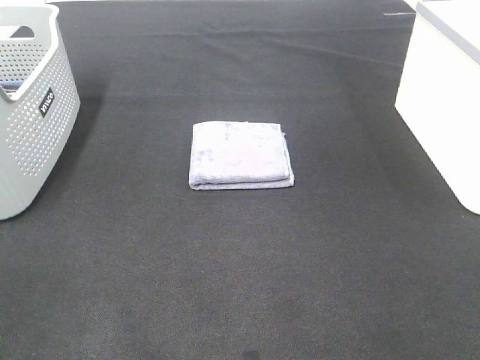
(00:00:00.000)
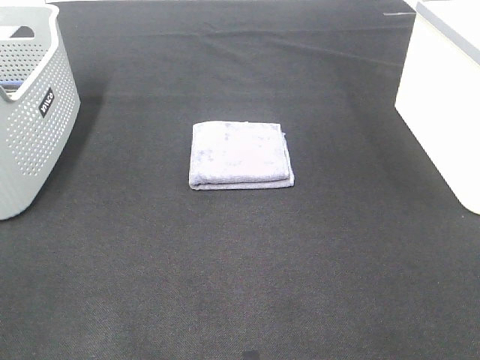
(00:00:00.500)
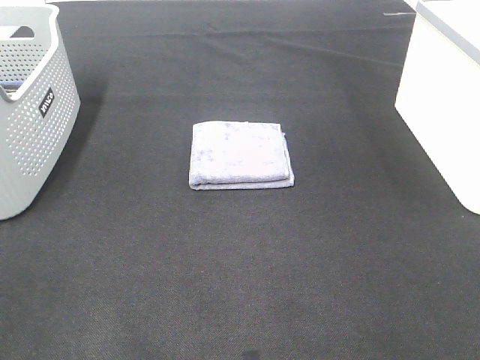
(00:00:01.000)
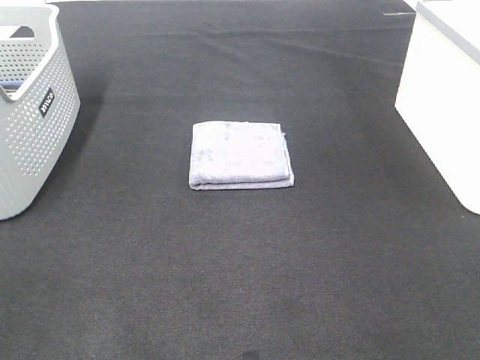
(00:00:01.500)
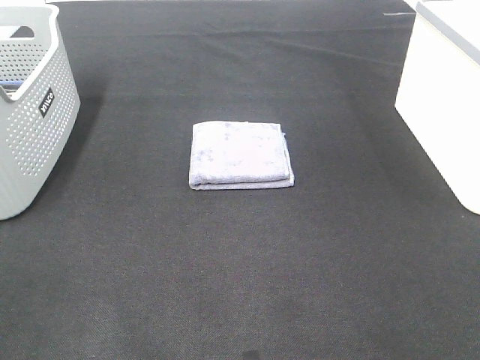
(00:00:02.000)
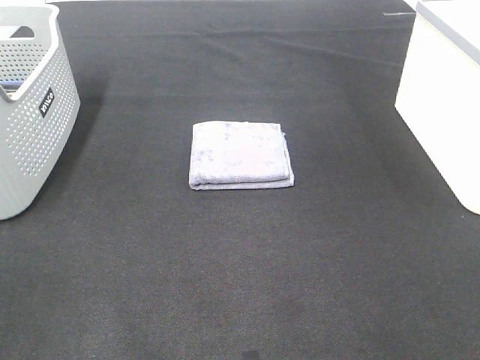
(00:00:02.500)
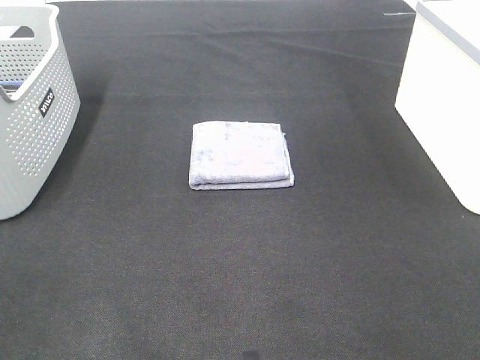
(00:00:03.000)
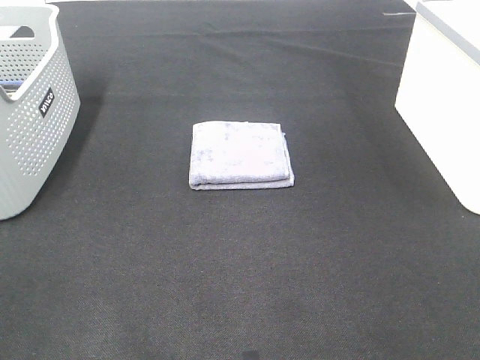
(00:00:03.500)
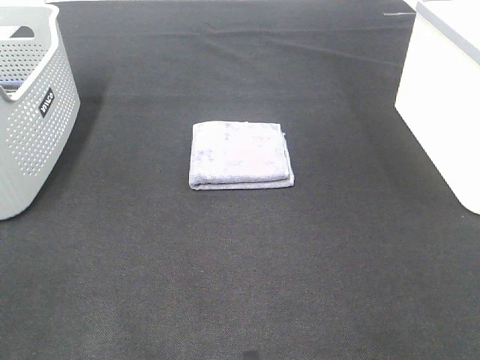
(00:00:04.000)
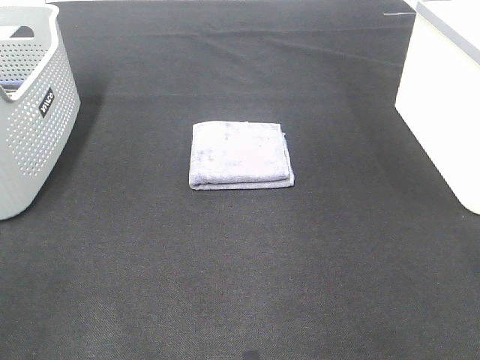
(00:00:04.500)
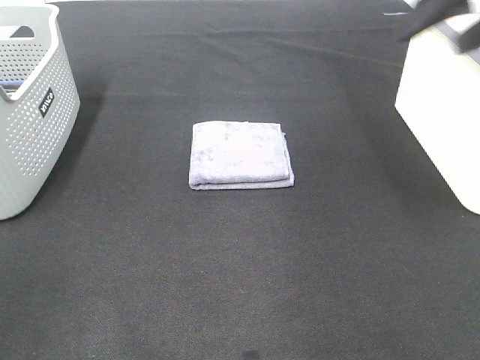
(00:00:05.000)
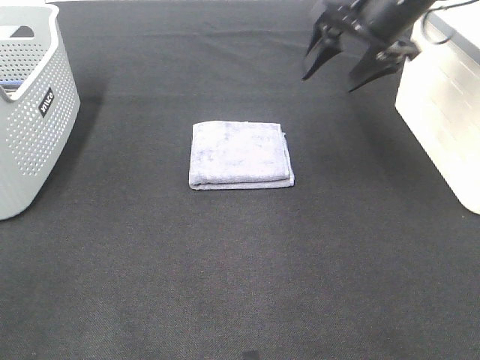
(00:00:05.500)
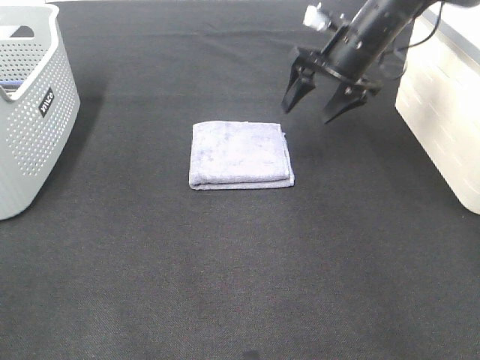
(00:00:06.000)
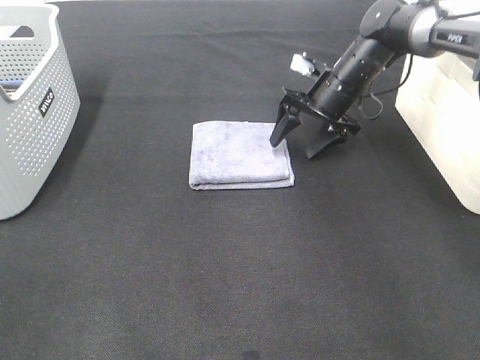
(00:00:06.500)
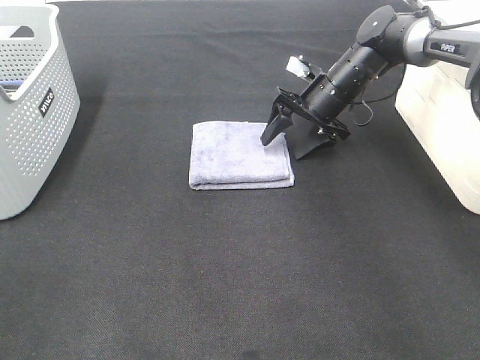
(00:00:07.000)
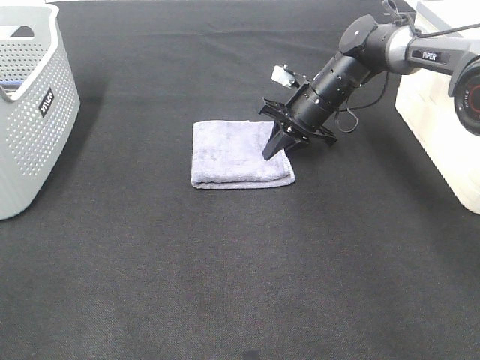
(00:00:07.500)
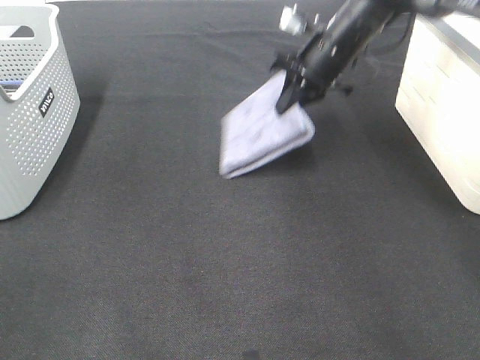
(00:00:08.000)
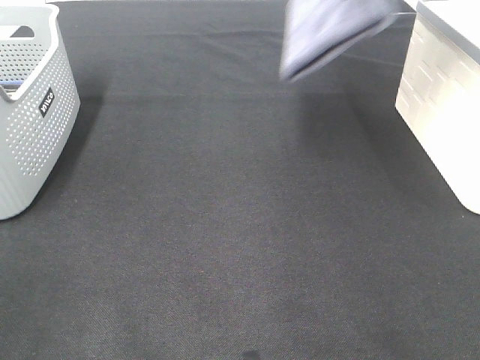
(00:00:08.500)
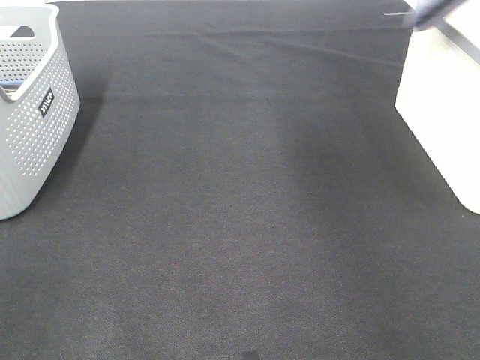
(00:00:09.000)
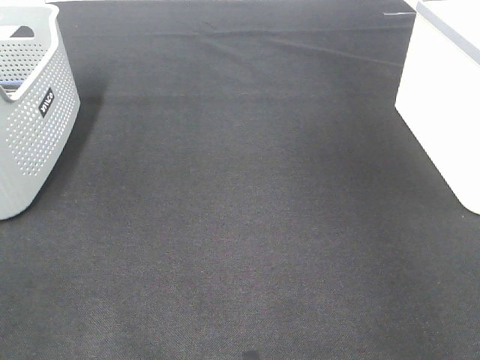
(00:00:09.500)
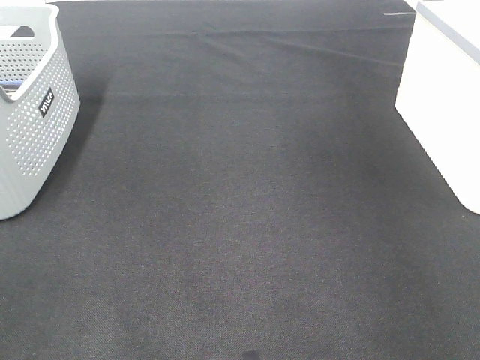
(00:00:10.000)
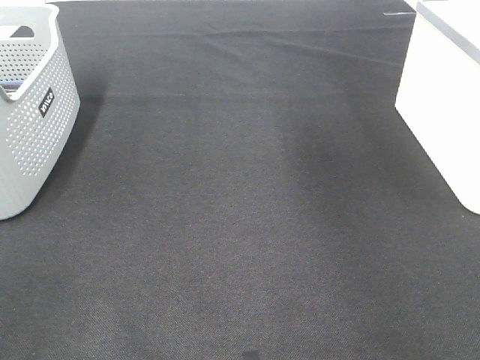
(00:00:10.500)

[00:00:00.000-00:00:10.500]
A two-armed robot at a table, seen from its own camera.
Step, 00:00:00.000 to 00:00:07.500: Right hand: grab the folded grey towel.
Step, 00:00:08.000 to 00:00:10.000: Right hand: place the grey towel in right basket.
00:00:00.000 to 00:00:02.000: The two grippers keep their place.
00:00:04.000 to 00:00:06.500: The right gripper goes roughly 50 cm forward and downward.
00:00:06.500 to 00:00:08.500: The right gripper heads upward, covering roughly 25 cm, and closes.
00:00:08.500 to 00:00:10.500: The right gripper goes about 10 cm to the right, and opens.

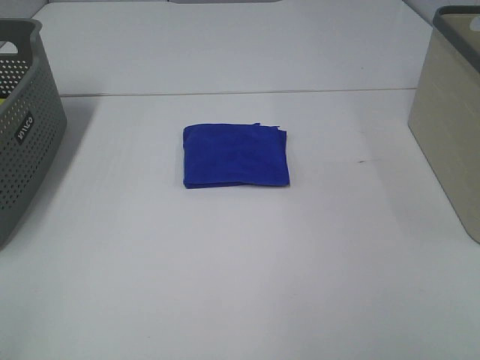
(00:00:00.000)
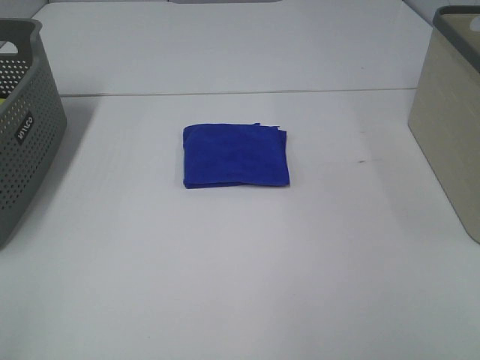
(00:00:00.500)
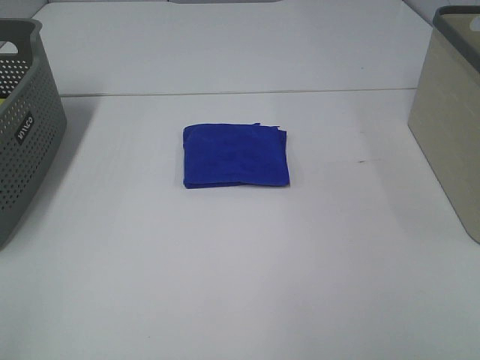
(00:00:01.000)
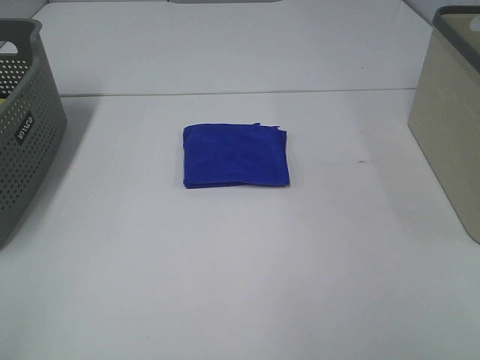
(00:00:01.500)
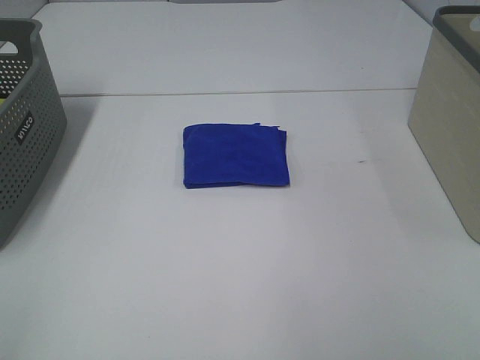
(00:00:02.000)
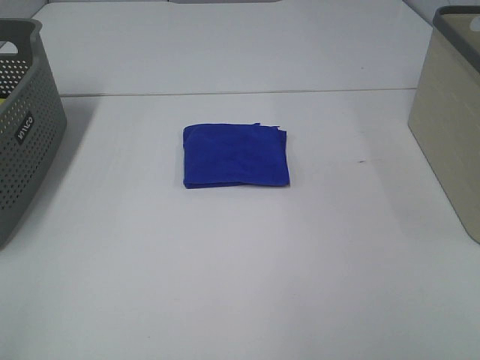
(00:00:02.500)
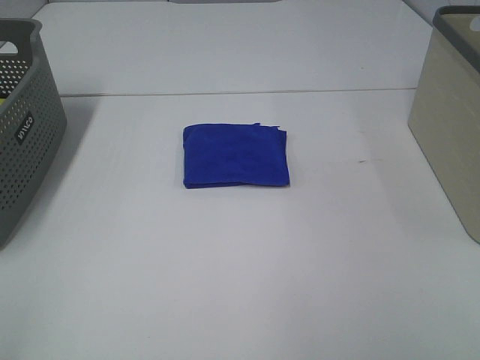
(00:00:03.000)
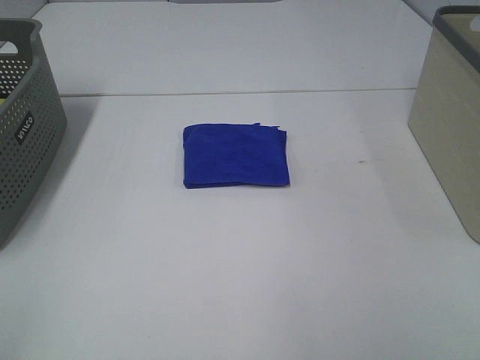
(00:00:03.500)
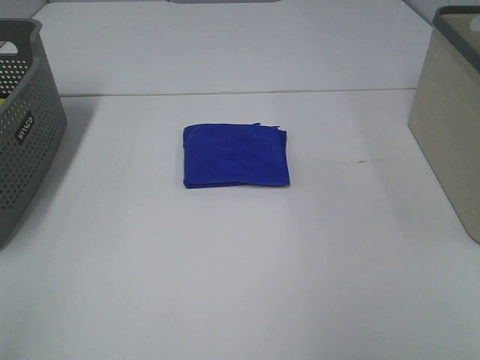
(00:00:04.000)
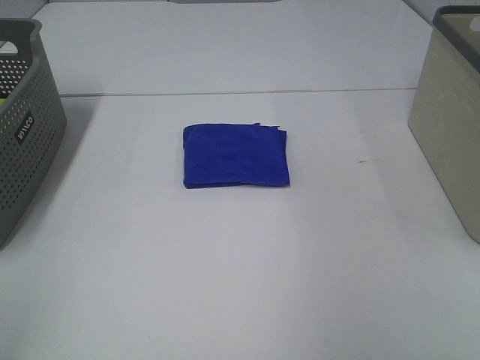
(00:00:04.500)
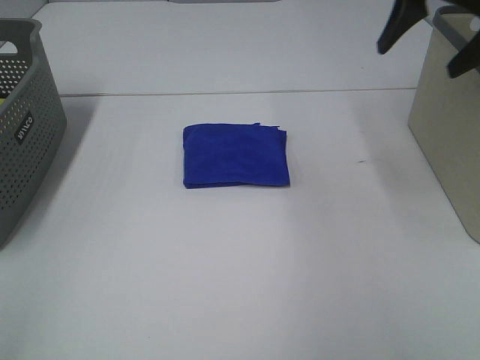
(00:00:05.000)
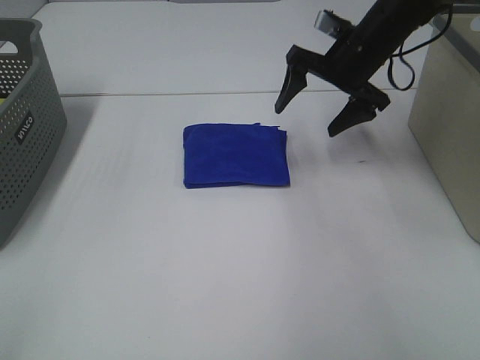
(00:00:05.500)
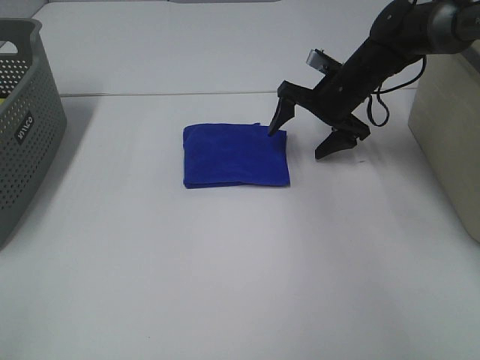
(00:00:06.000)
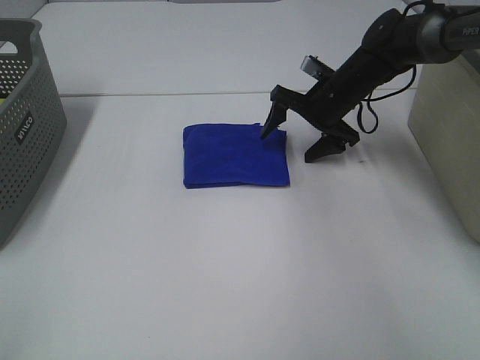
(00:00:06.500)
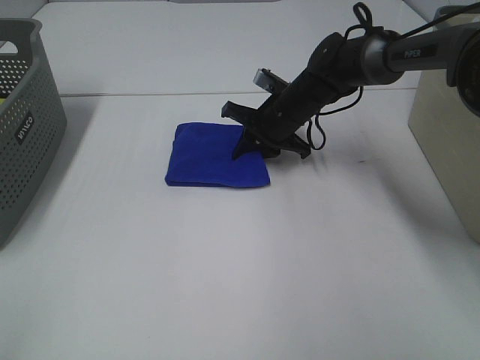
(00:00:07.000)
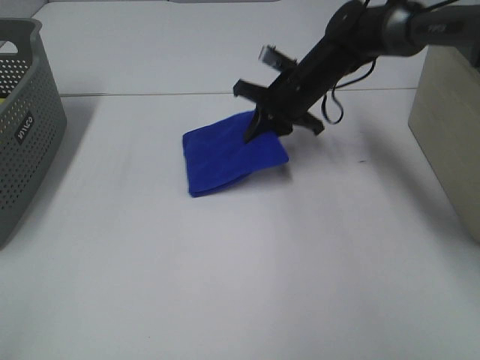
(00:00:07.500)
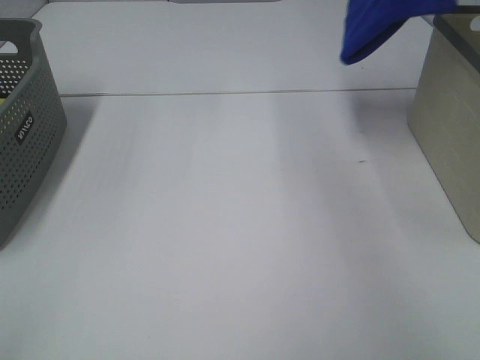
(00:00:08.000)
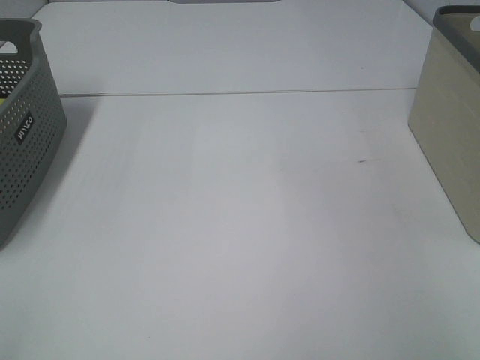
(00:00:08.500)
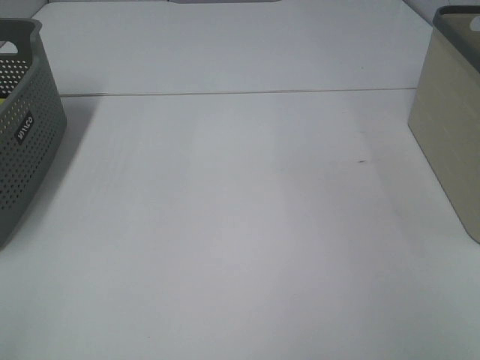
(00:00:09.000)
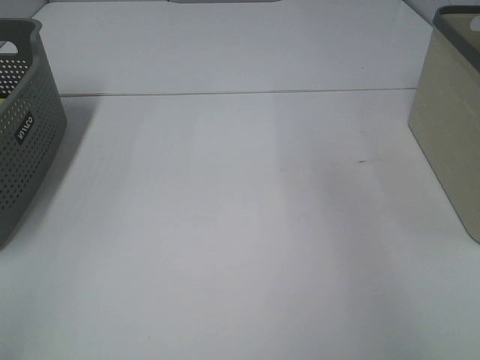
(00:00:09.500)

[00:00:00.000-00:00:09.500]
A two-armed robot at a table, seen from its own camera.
Step, 00:00:00.000 to 00:00:07.000: Right hand: grab the folded blue towel.
Step, 00:00:07.500 to 00:00:09.000: Right hand: place the blue towel in right basket.
00:00:00.000 to 00:00:02.000: Neither gripper changes place.
00:00:04.000 to 00:00:05.500: The right gripper moves forward, downward and to the left, some 40 cm.
00:00:05.500 to 00:00:07.500: The right gripper goes about 5 cm to the left, and closes up.
00:00:07.500 to 00:00:09.500: The right gripper goes some 35 cm to the right and upward, and opens its fingers.

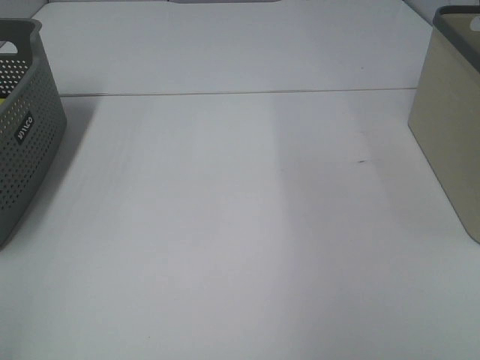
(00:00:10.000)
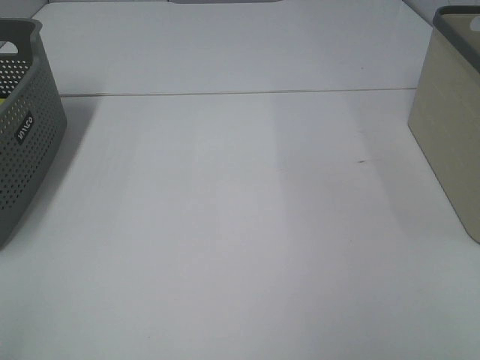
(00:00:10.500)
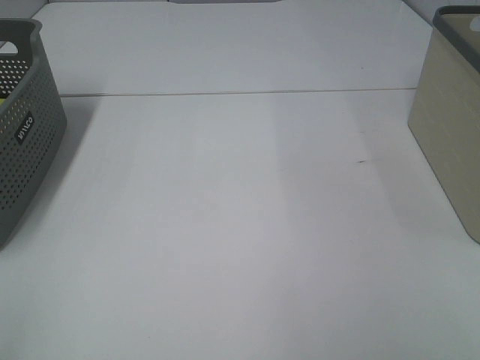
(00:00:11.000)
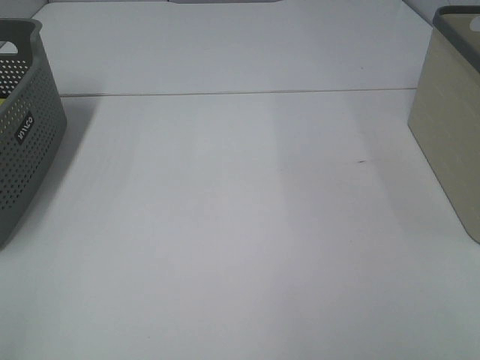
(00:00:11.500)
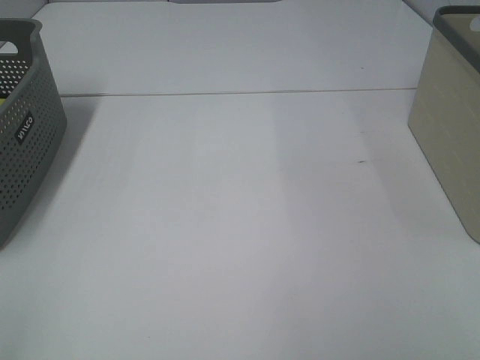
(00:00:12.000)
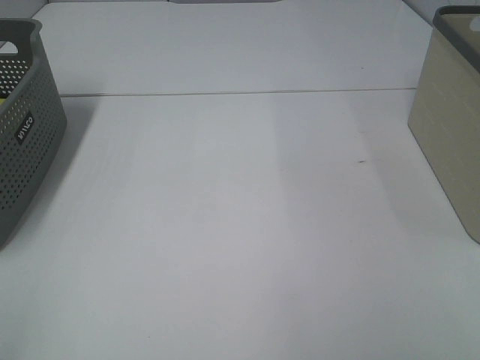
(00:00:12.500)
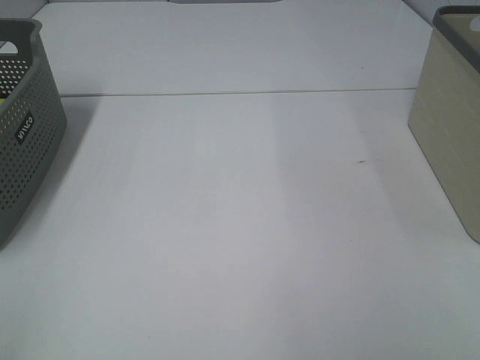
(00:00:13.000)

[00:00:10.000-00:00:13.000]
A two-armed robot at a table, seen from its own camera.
00:00:11.500 to 00:00:13.000: Both grippers stay about where they are.
